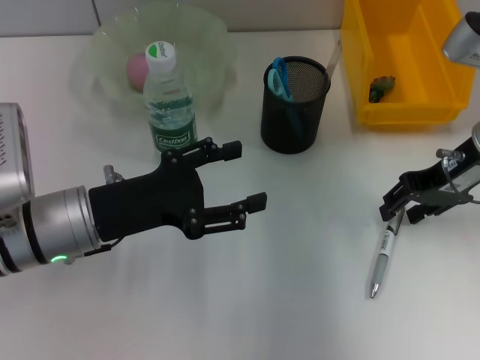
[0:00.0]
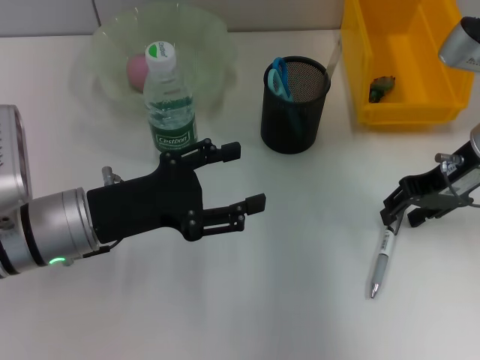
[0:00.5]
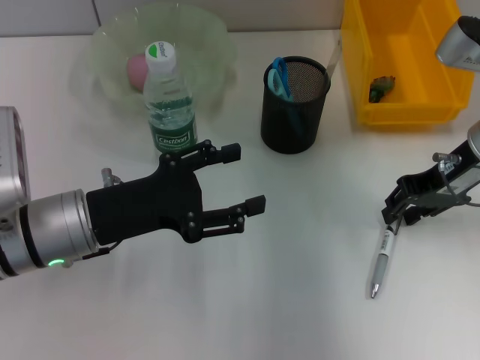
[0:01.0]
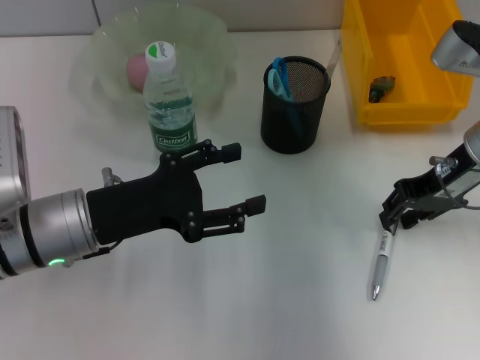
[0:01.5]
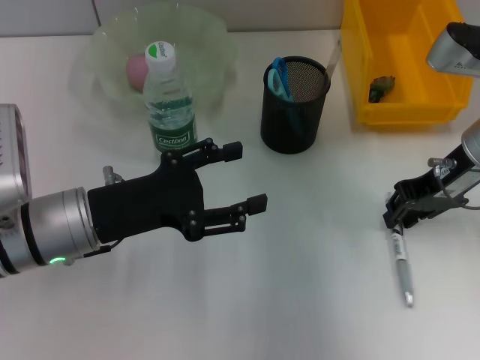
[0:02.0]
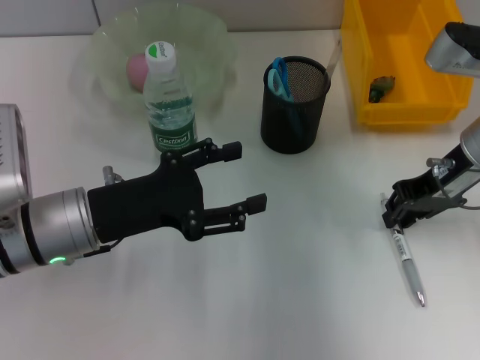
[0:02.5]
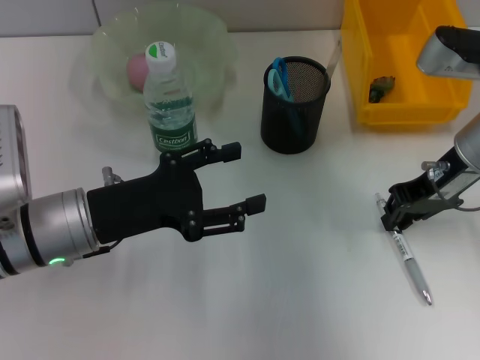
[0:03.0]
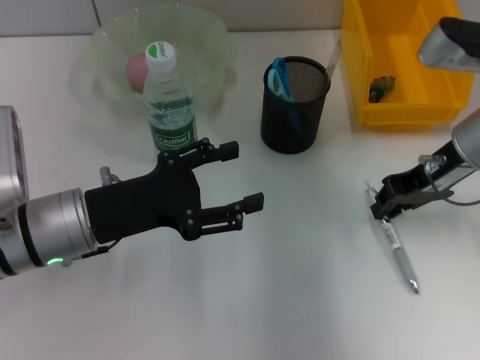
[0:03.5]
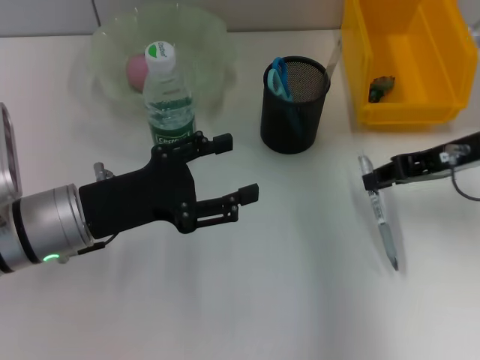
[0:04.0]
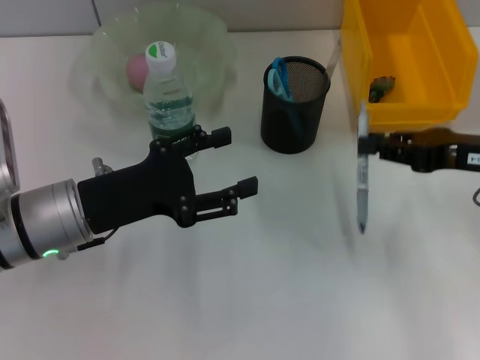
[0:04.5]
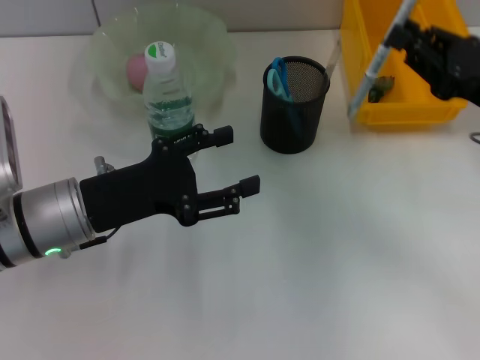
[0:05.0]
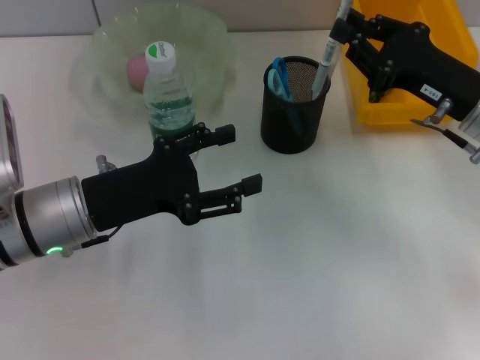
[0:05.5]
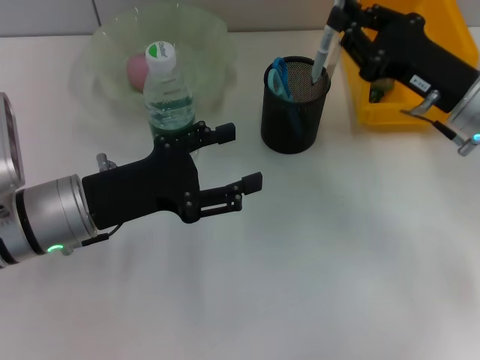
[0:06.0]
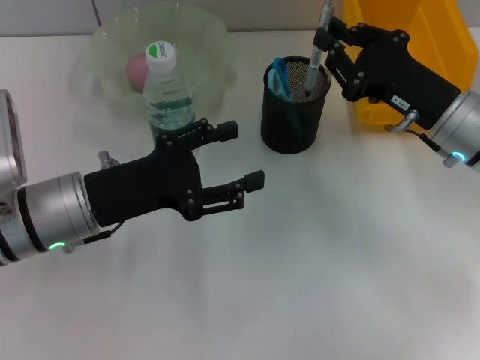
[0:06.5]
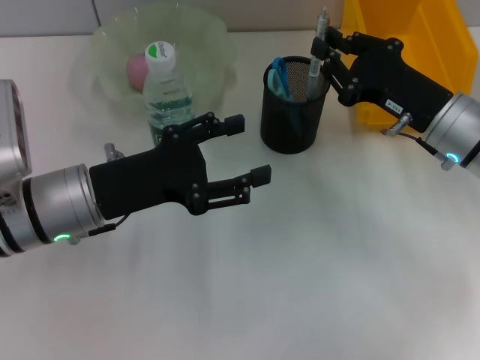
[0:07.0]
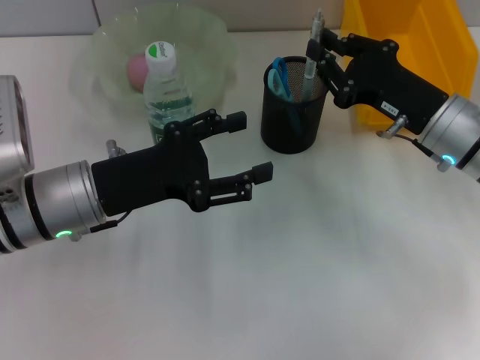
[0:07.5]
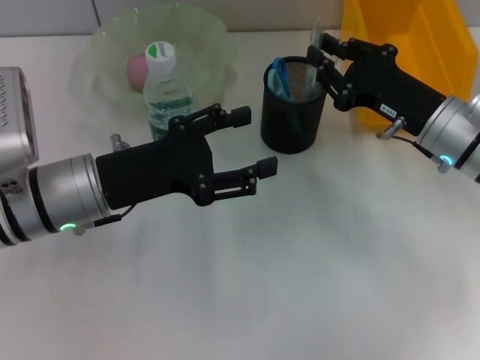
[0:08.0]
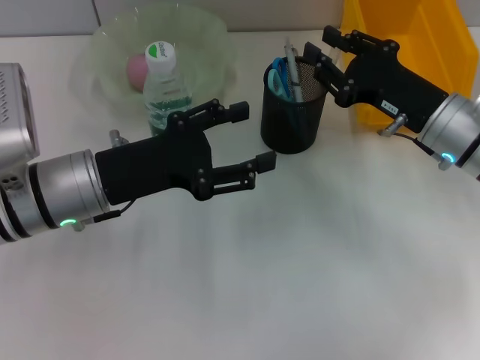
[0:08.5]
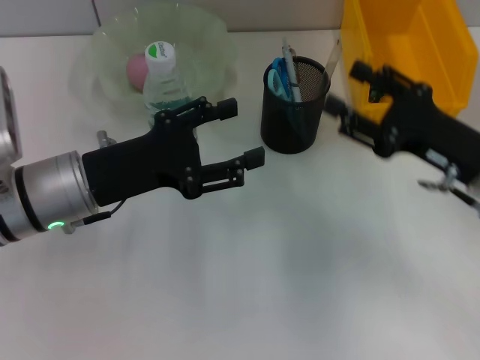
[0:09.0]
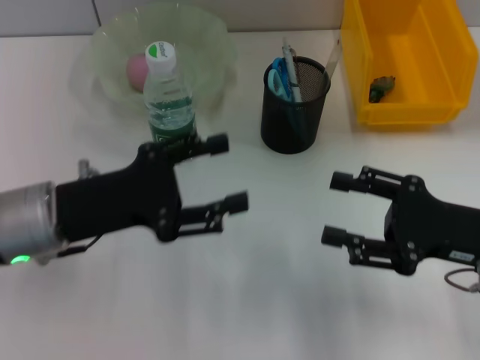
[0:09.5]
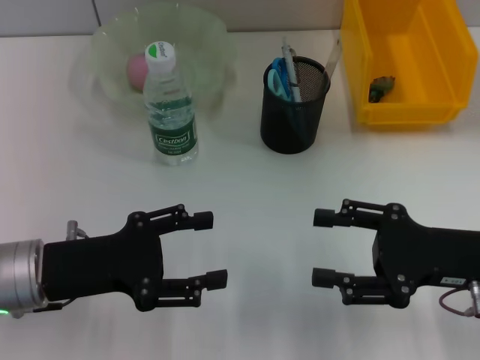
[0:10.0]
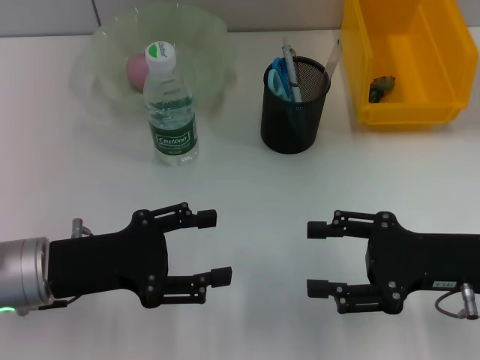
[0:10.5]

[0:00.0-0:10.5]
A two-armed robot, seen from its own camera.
Step, 0:00.0 to 0:03.0: Grab the gray spring-action pen with the right hand.
Step, 0:03.5 to 0:08.0: Place the gray spring-action pen into the pen holder with the right hand.
0:00.0 to 0:02.0: Both grippers stay put.
0:04.0 to 0:06.5: The right gripper heads downward, covering approximately 5 cm.
0:06.5 to 0:08.5: The grippers make only small movements.
0:08.5 to 0:10.5: The right gripper moves backward, approximately 10 cm, and opens up; the left gripper is displaced backward by about 5 cm.
